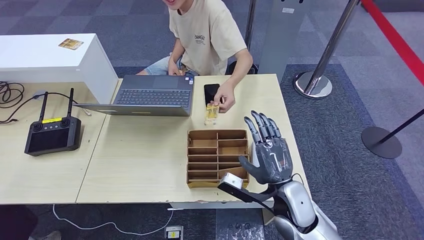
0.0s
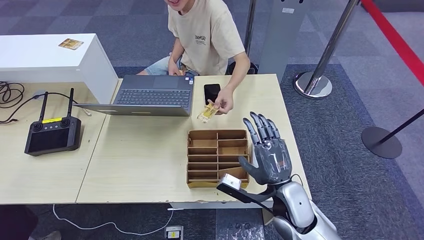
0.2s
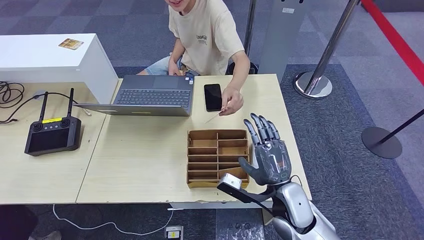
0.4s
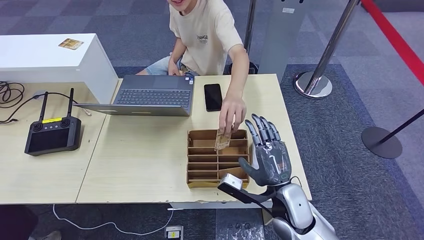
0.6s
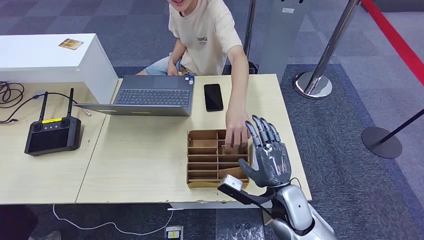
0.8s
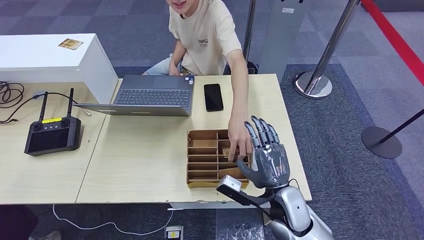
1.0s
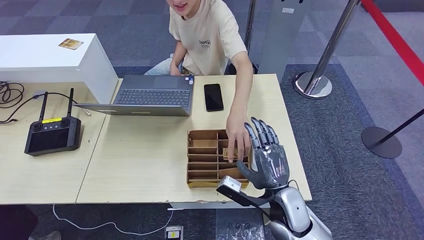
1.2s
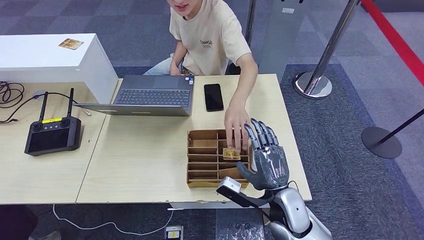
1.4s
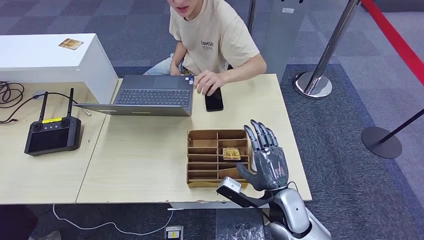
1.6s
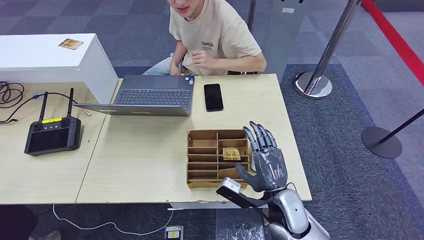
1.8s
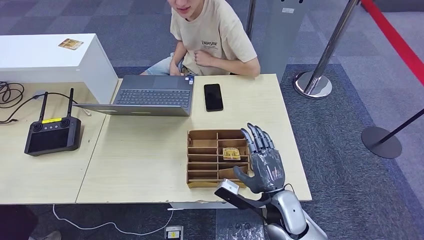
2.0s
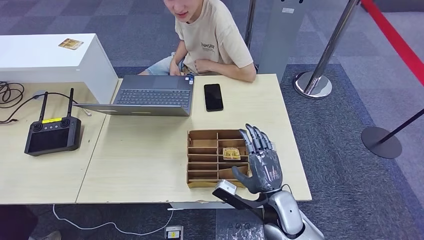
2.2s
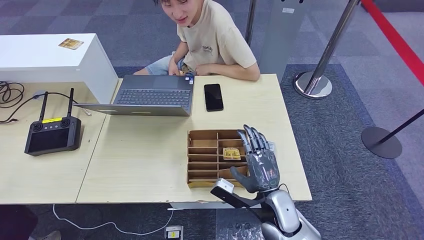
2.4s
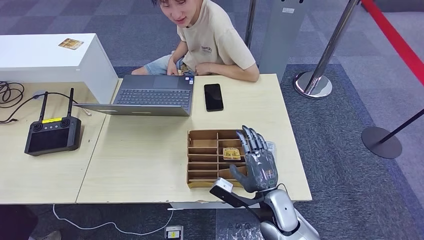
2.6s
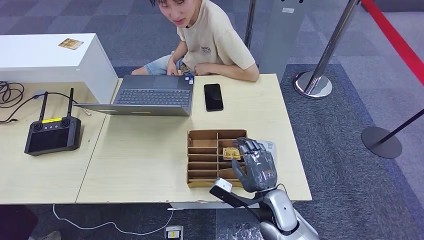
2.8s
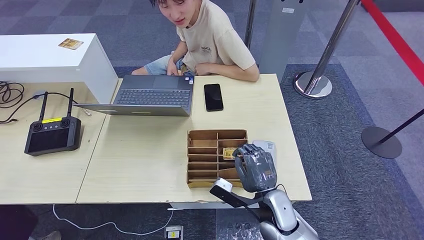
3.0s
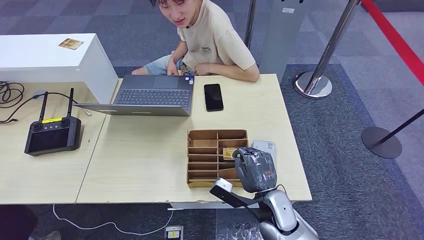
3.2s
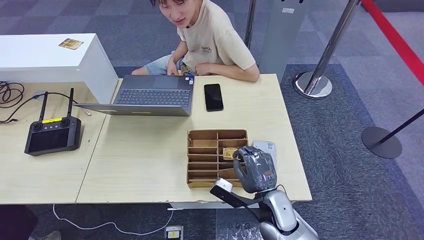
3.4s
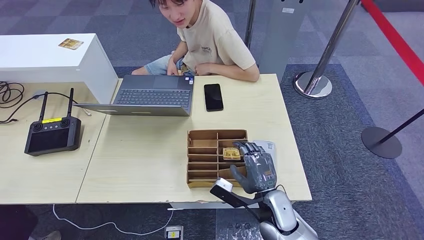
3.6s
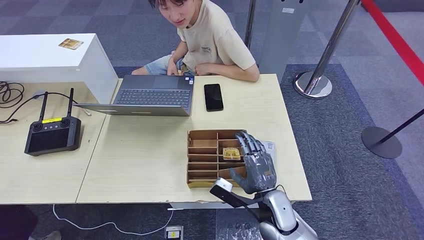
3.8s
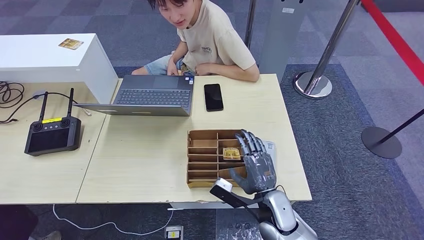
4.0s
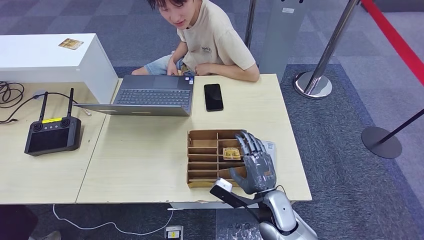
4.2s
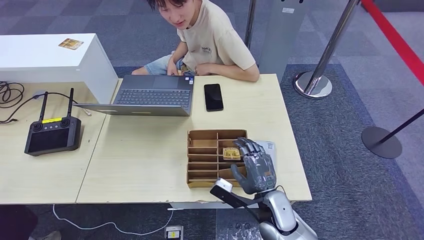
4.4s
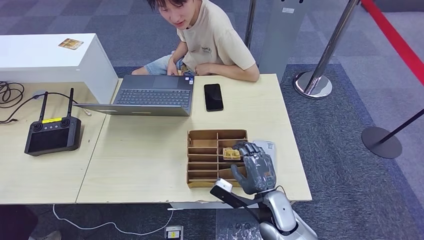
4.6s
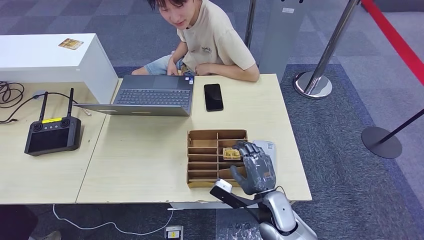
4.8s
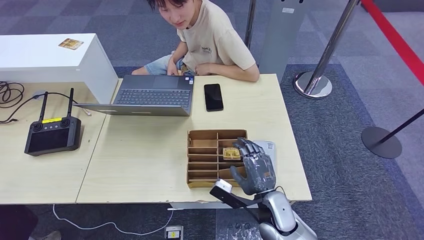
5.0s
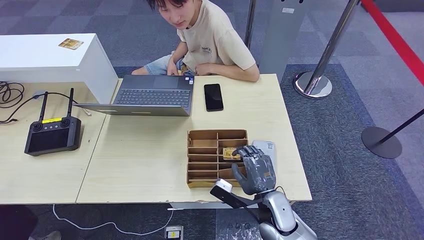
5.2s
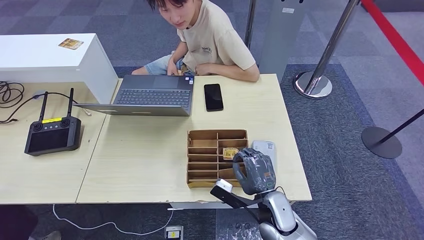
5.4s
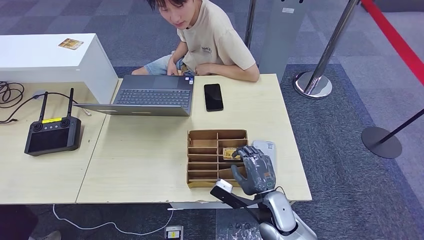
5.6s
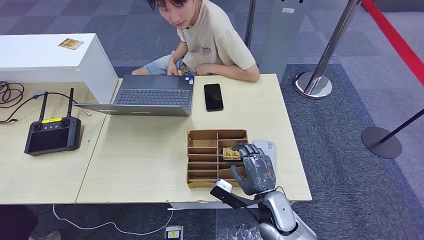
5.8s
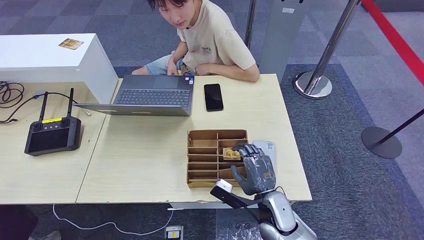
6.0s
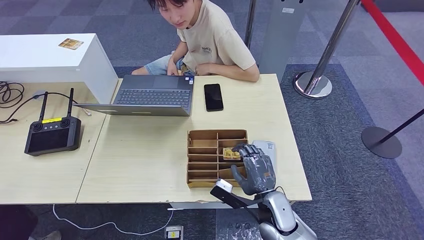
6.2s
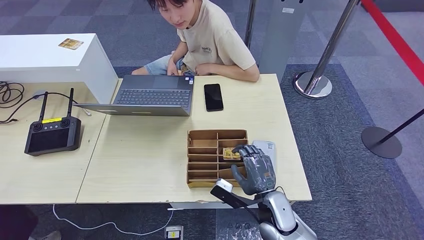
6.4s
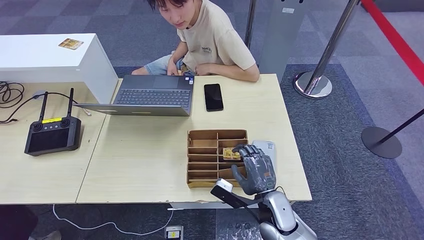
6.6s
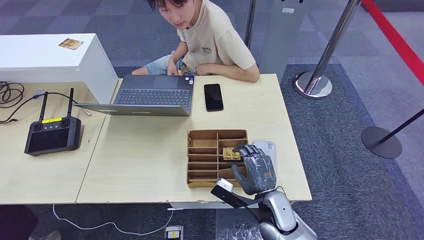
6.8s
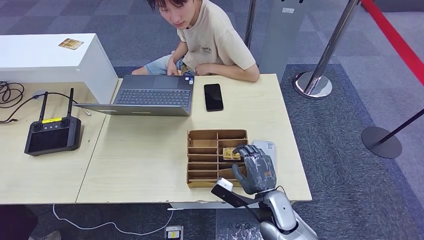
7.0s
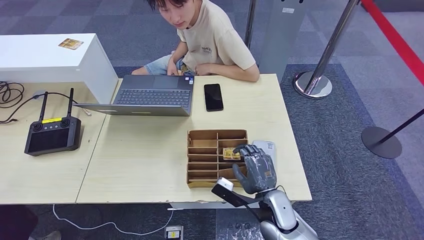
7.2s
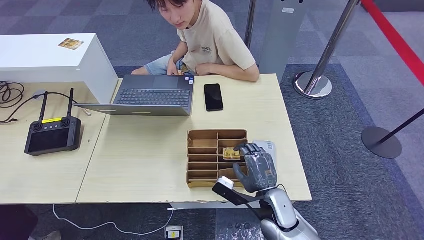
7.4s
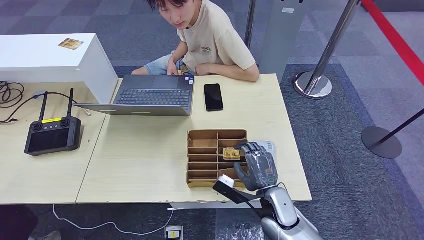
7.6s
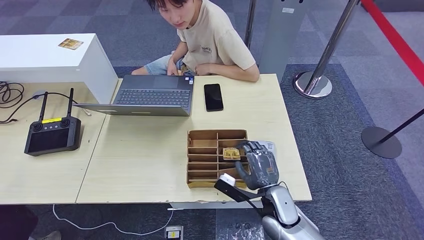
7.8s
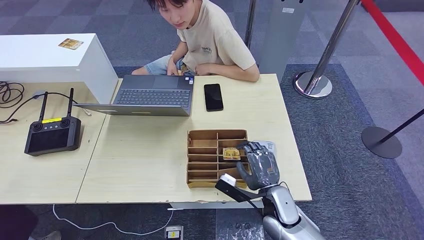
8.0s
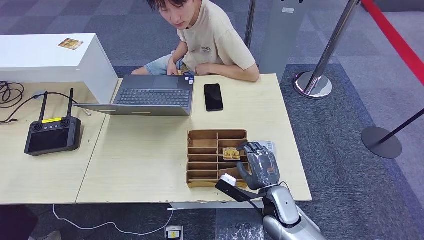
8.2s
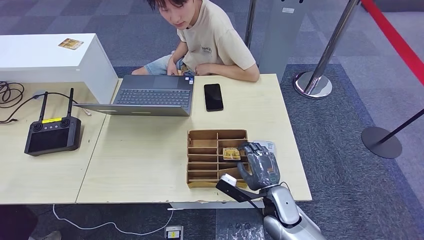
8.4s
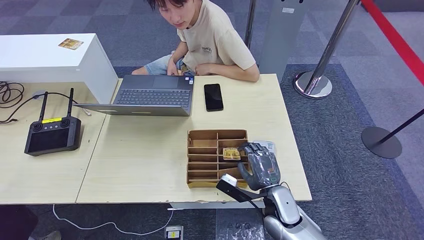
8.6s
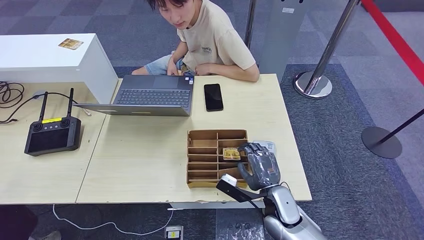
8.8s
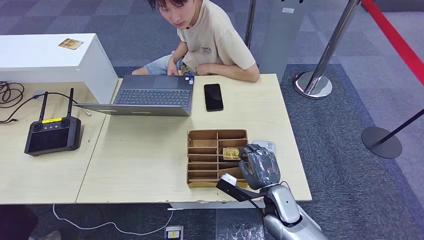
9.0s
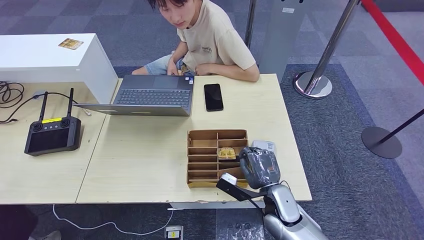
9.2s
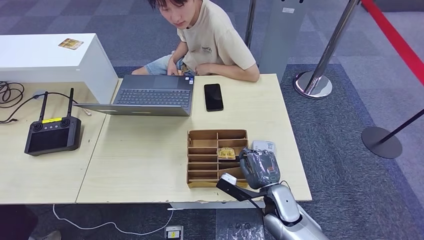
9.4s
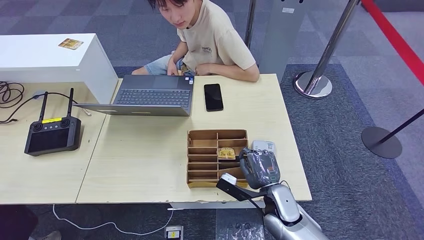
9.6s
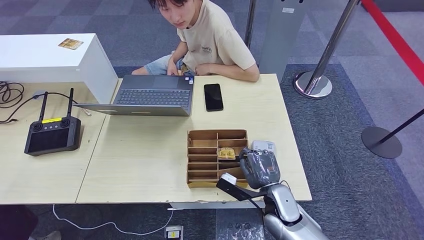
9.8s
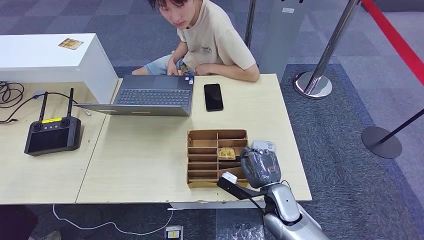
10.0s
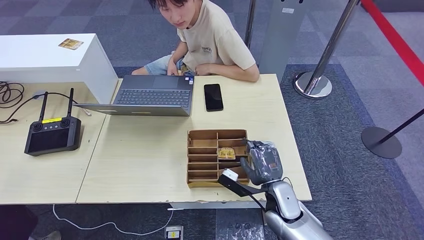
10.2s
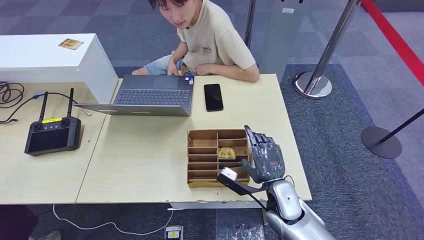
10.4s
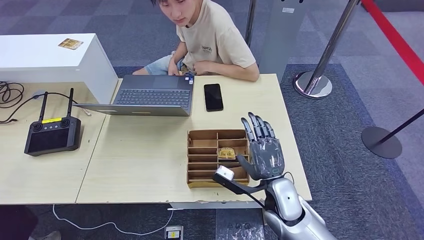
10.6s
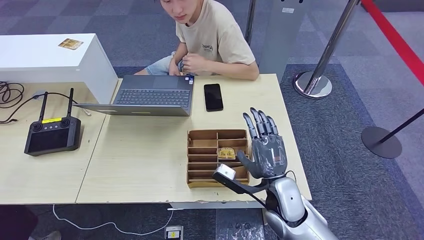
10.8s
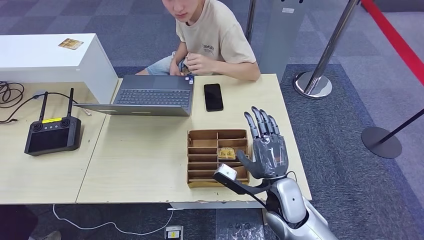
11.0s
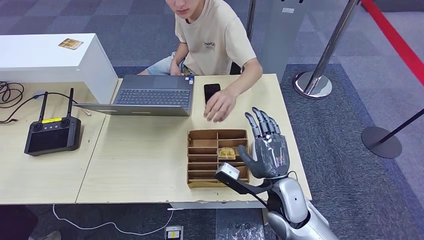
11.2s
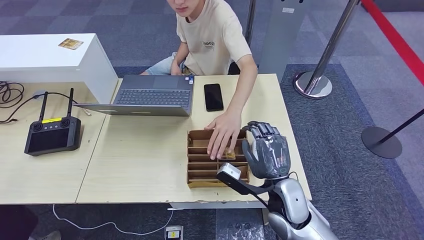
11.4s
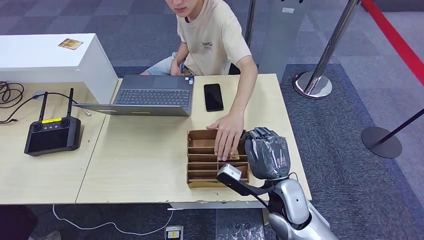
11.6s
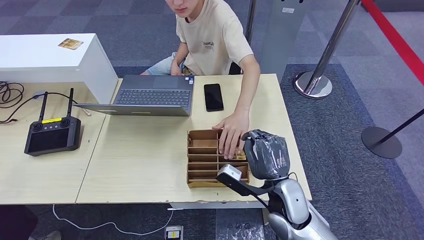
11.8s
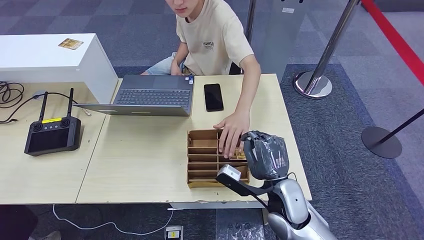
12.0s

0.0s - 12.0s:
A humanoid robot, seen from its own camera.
0.0s - 1.6s: There are only small adjustments of the hands.
1.6s - 3.0s: The hands stay close to where they were, moving slightly.
3.0s - 6.0s: Neither hand changes place.
6.0s - 7.6s: Neither hand changes place.
7.6s - 9.0s: Neither hand changes place.
9.0s - 10.4s: The hands stay close to where they were, moving slightly.
10.4s - 12.0s: The right hand is displaced upward by approximately 5 cm.

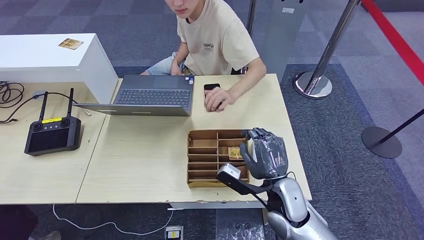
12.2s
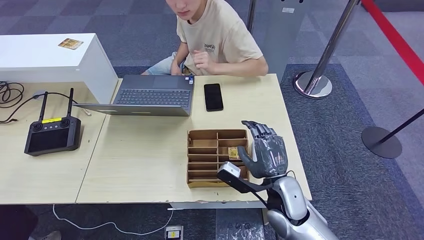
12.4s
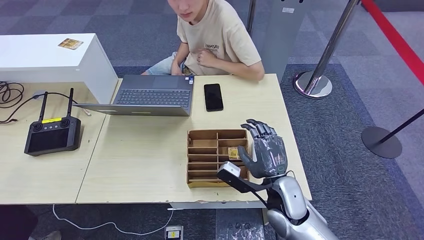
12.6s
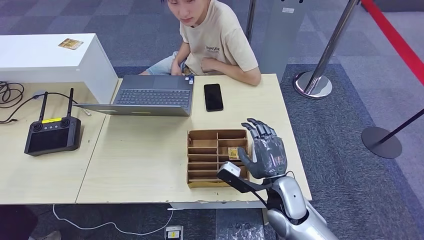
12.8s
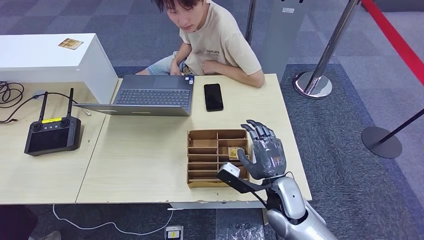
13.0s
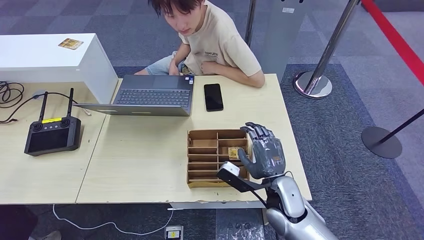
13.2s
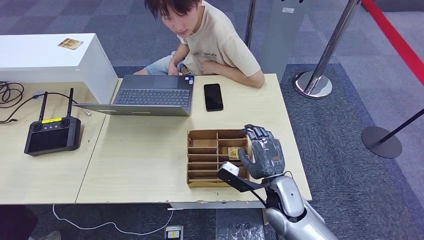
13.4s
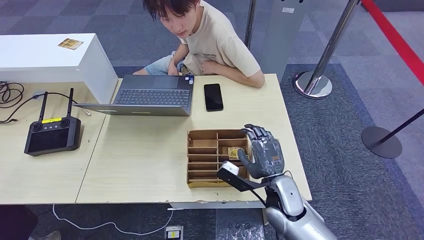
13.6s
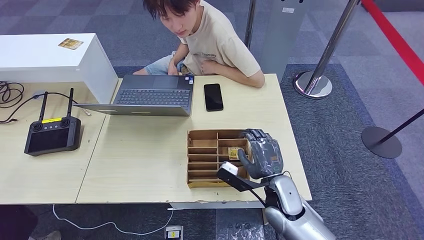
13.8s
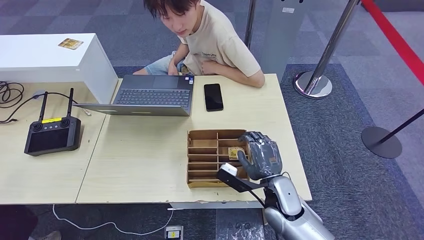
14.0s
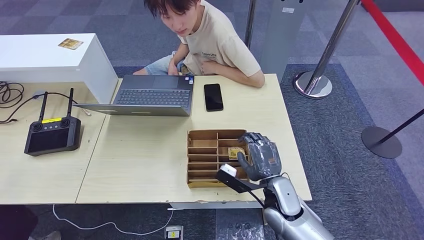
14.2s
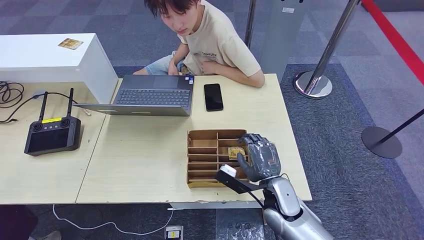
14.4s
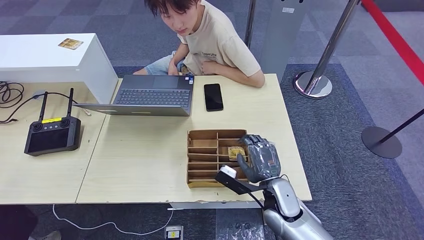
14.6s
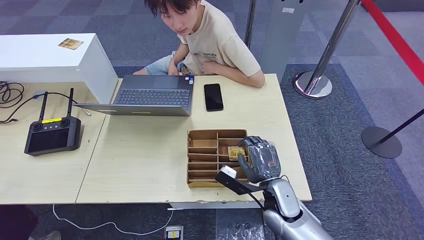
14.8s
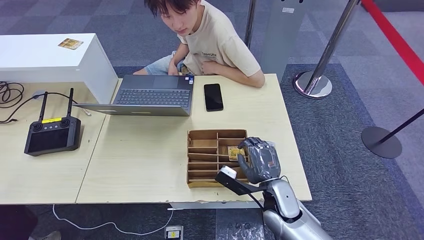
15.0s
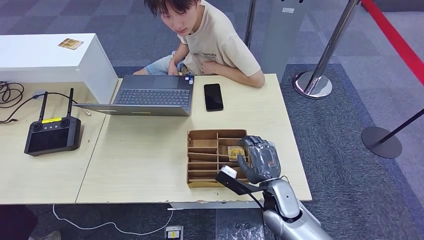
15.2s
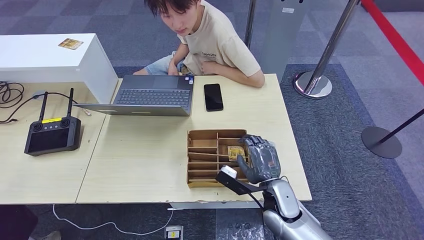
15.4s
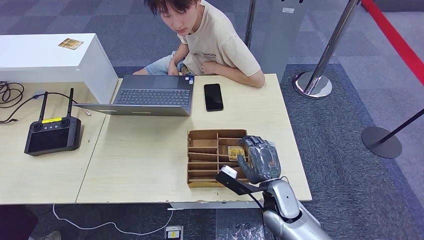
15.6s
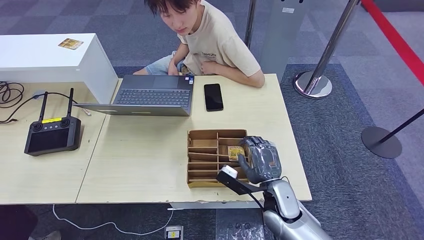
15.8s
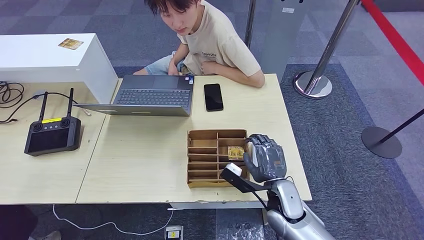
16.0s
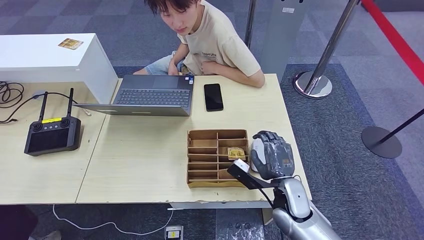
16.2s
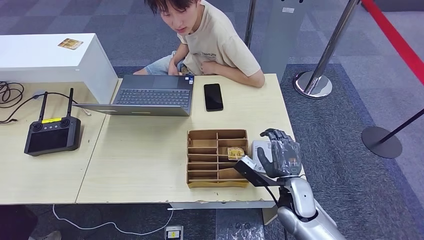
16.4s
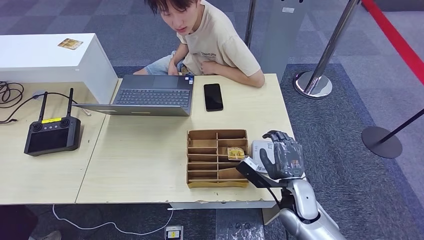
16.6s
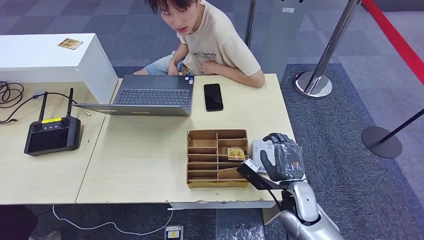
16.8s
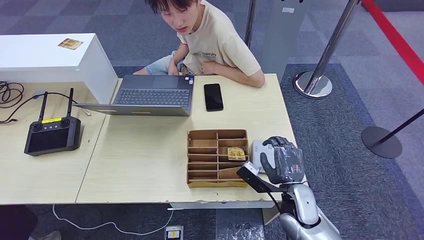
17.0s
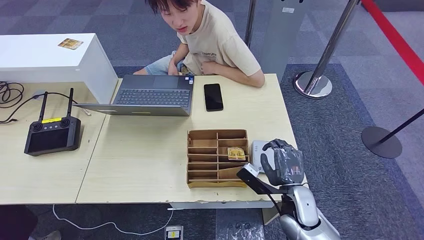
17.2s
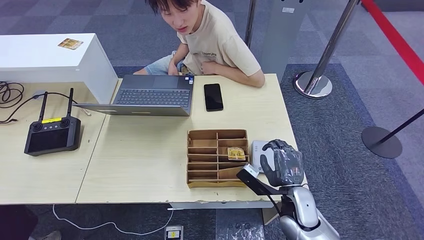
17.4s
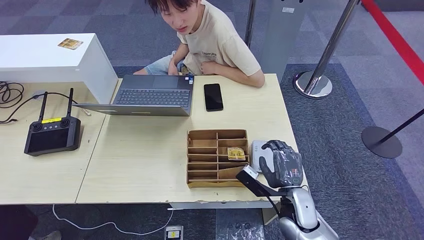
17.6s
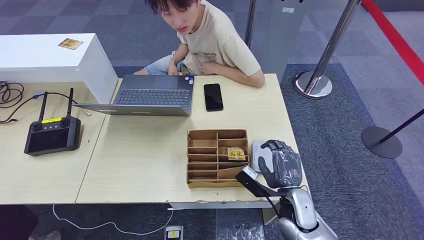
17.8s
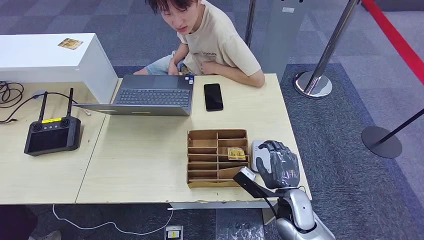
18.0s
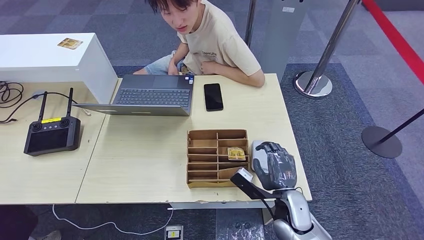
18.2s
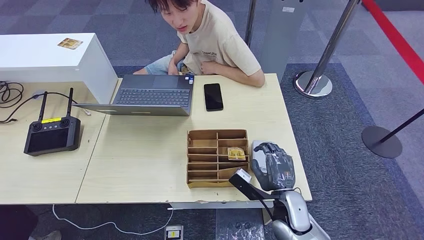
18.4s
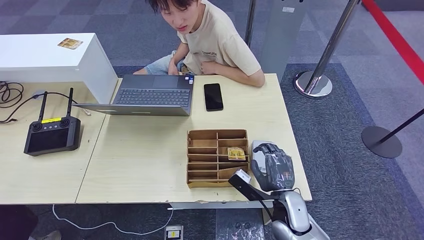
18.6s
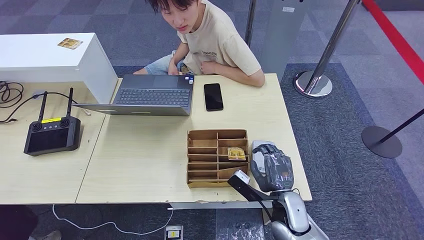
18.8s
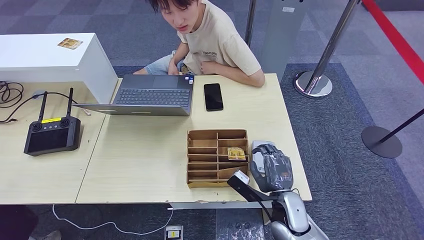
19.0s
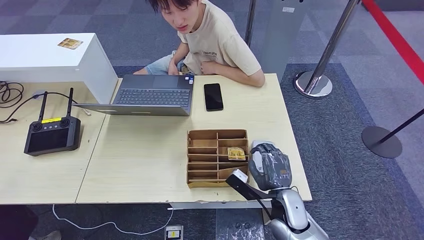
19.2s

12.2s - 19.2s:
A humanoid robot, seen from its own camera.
12.2s - 16.4s: There are only small adjustments of the hands.
16.4s - 19.2s: The hands move only a little.
